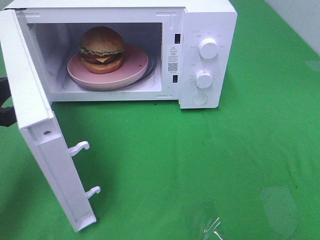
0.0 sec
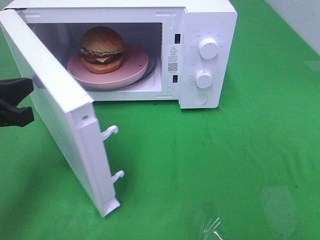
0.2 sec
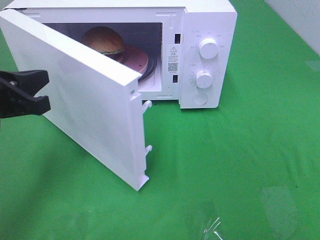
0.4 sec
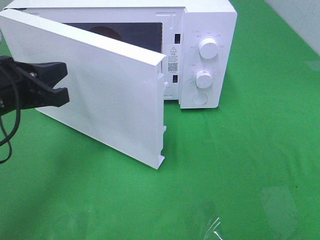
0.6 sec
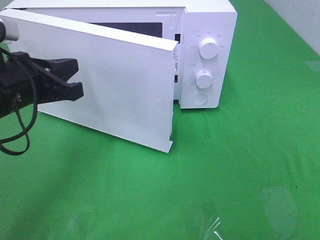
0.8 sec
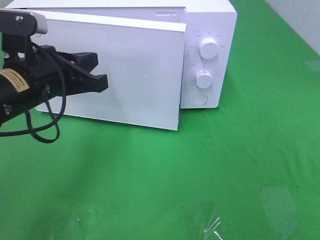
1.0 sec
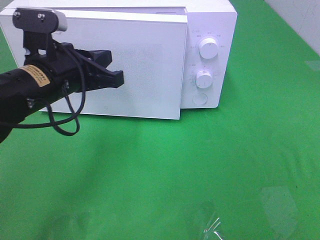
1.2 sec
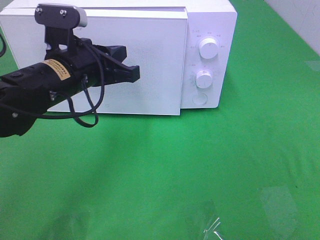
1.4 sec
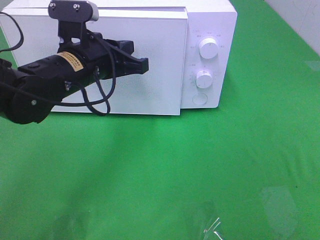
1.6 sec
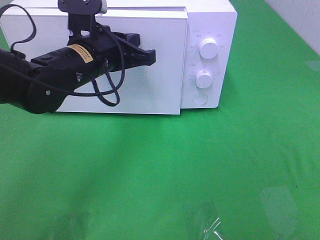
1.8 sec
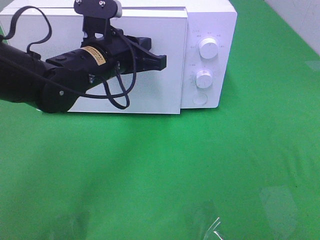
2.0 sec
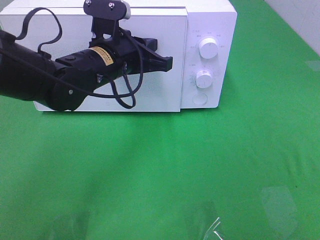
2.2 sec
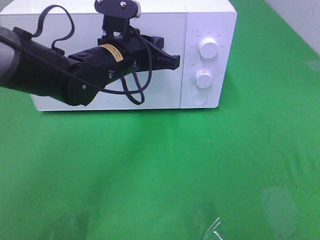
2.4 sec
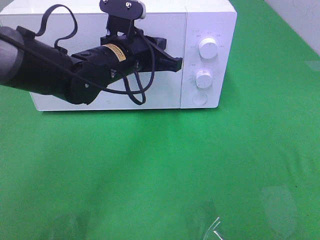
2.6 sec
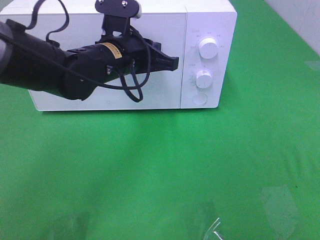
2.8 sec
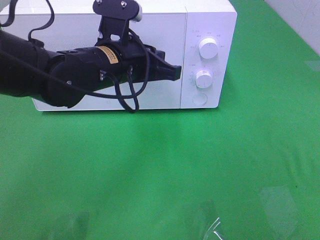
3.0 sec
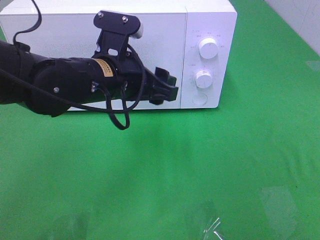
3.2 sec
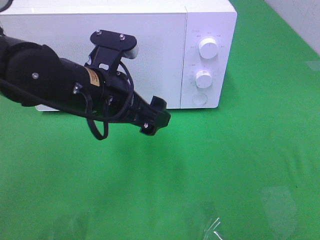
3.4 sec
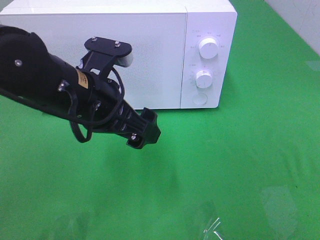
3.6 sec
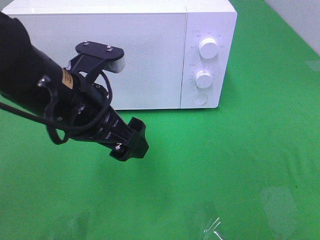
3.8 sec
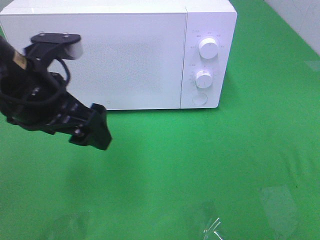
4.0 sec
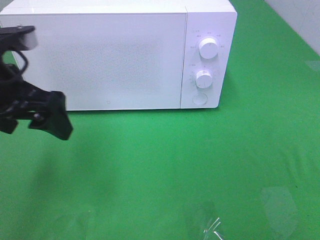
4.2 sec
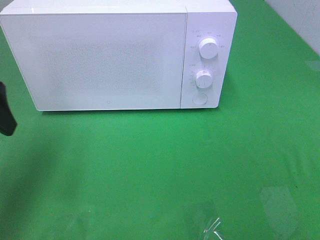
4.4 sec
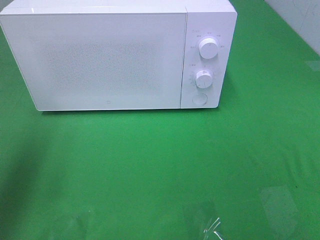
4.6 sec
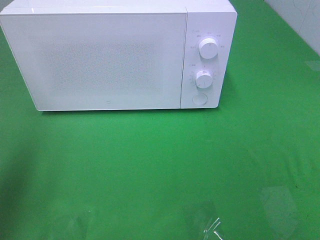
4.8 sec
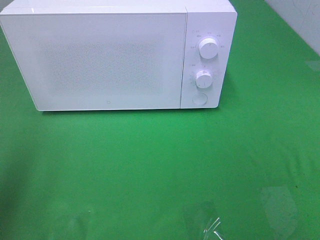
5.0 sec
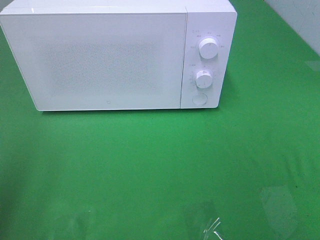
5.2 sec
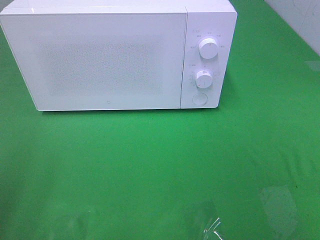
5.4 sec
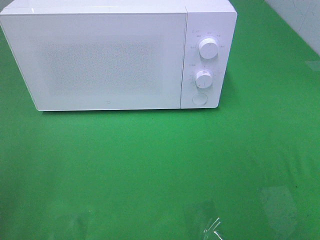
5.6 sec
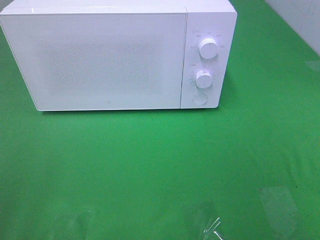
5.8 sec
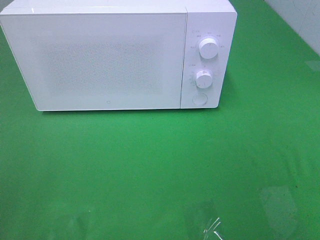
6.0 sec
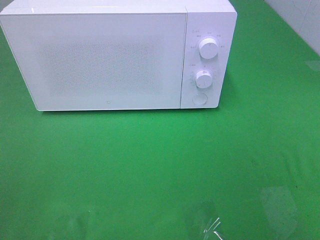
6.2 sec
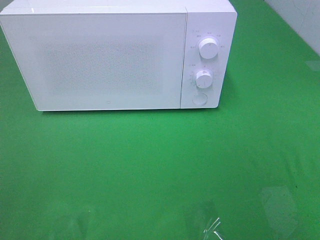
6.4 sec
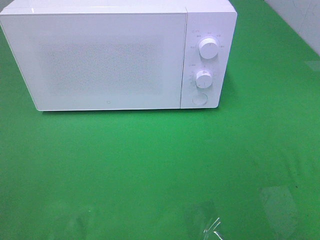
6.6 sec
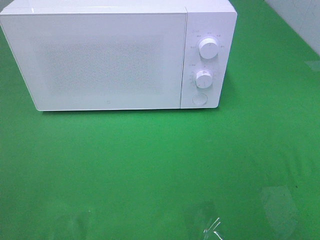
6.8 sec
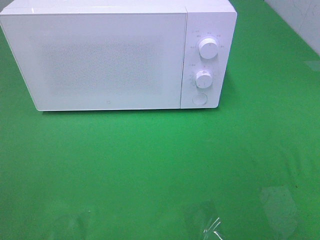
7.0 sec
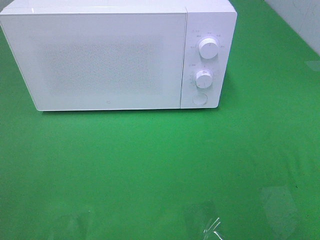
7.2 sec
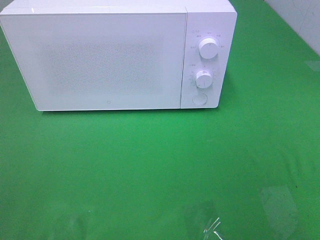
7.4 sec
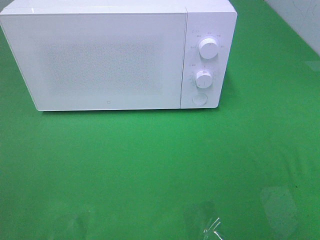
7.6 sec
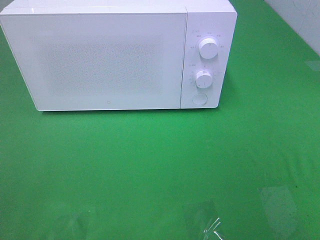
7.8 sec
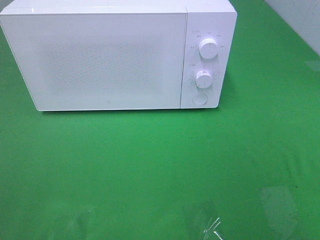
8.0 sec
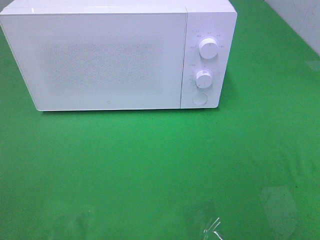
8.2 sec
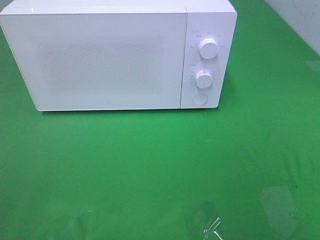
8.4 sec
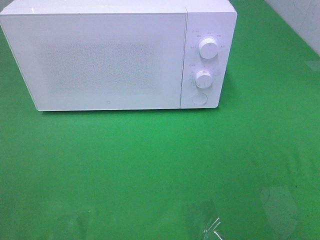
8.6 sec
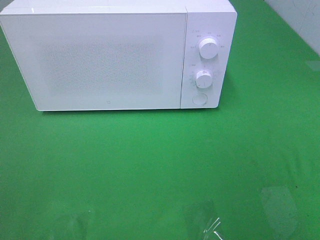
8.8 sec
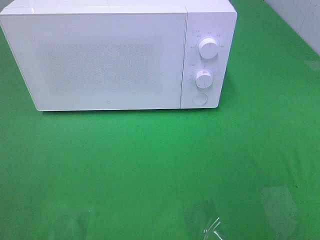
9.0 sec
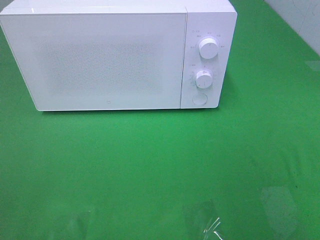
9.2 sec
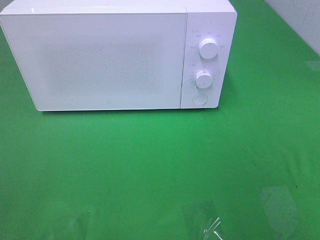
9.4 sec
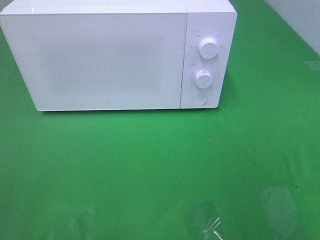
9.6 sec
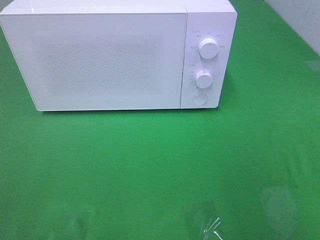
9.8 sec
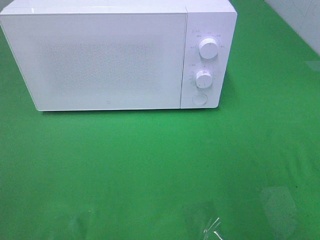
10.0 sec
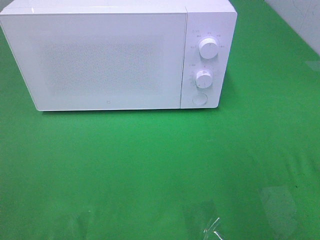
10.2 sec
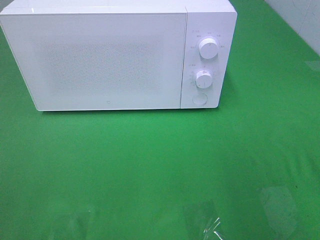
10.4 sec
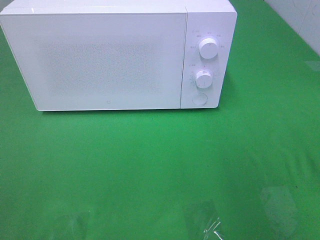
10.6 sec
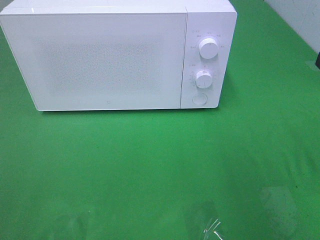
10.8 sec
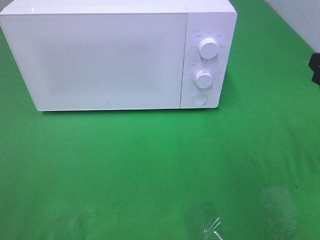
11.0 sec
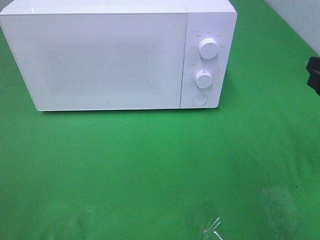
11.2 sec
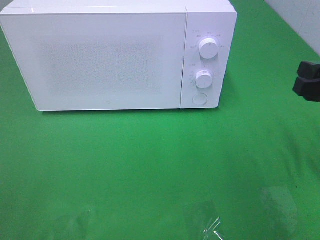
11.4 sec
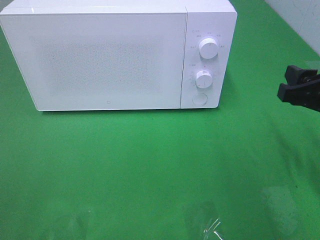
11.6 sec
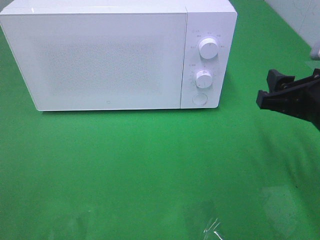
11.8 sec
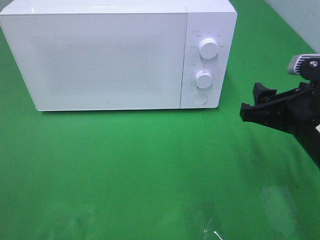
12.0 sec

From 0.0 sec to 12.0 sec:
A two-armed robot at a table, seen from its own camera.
Task of the whole recording: Heat the burger.
Step, from 0.0 sec to 3.4 sec: Left hand: close the microwave door.
From 0.0 sec to 1.6 sec: The left gripper travels to the right and forward by approximately 20 cm.
From 3.0 sec to 4.4 sec: The left gripper heads to the left, covering approximately 20 cm, and opens its fingers.
From 4.4 sec to 6.0 sec: The left gripper shifts some 20 cm backward.
From 10.4 sec to 12.0 sec: The right gripper shifts some 10 cm downward and to the left.

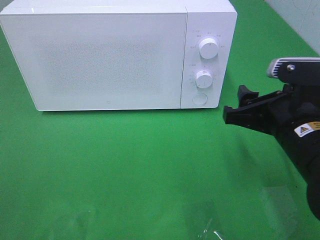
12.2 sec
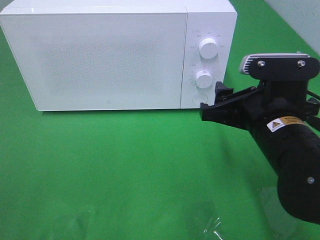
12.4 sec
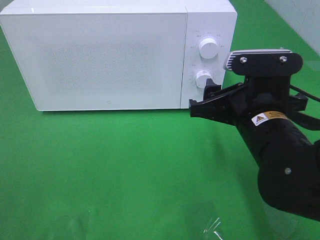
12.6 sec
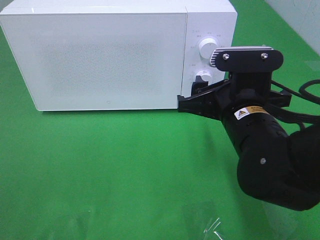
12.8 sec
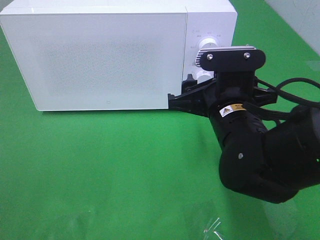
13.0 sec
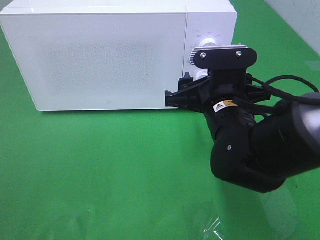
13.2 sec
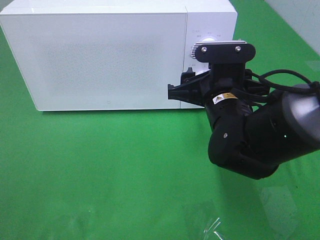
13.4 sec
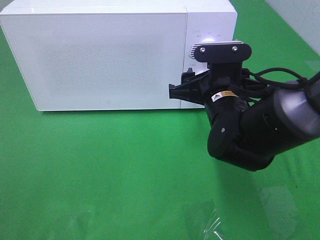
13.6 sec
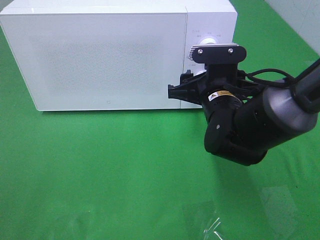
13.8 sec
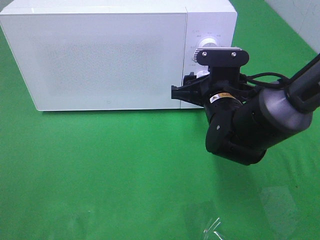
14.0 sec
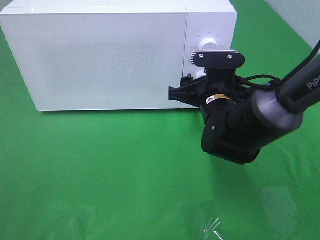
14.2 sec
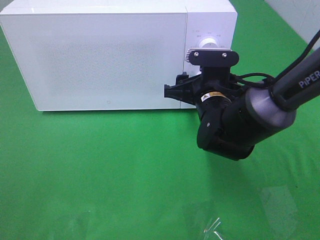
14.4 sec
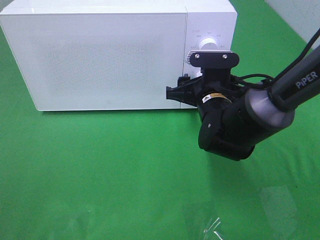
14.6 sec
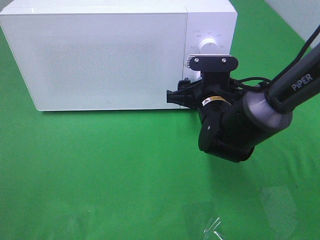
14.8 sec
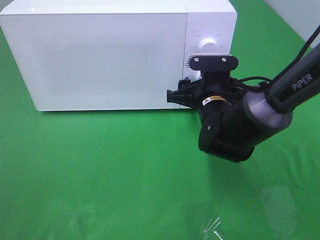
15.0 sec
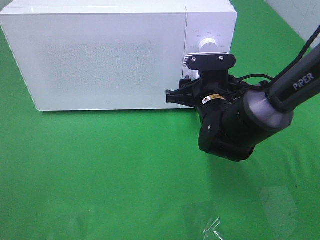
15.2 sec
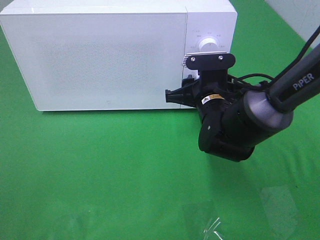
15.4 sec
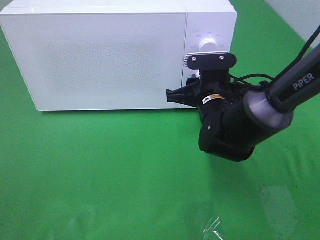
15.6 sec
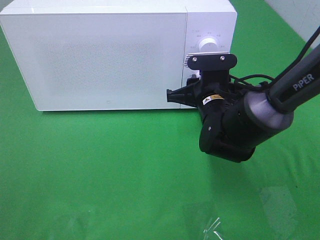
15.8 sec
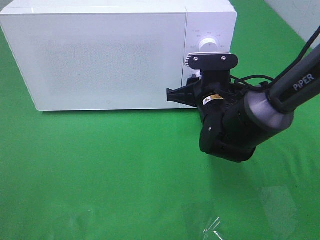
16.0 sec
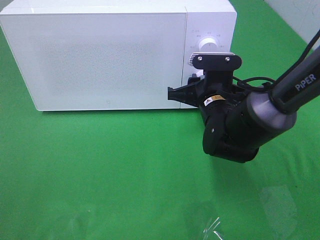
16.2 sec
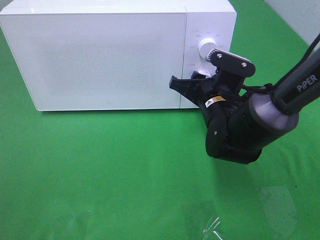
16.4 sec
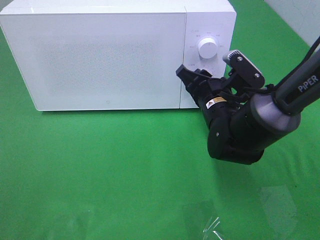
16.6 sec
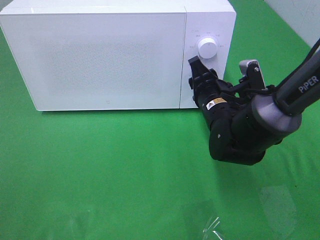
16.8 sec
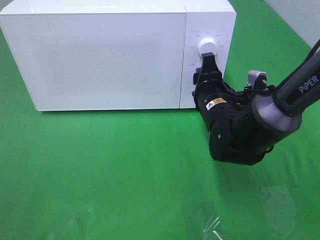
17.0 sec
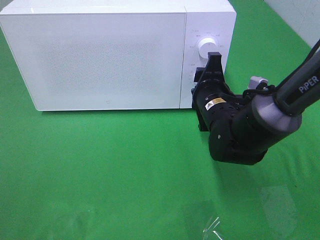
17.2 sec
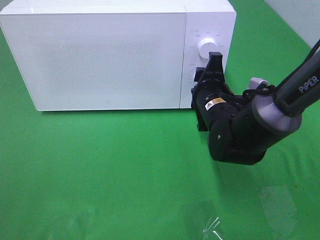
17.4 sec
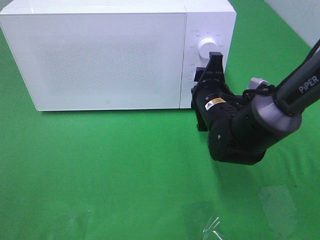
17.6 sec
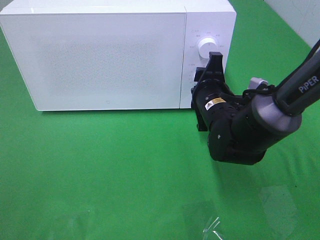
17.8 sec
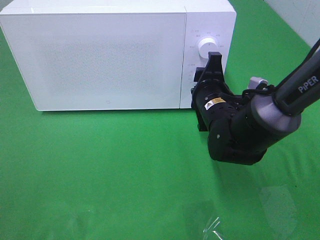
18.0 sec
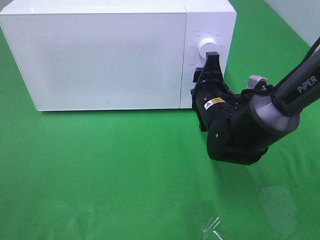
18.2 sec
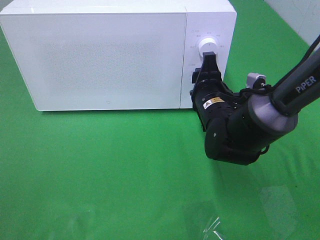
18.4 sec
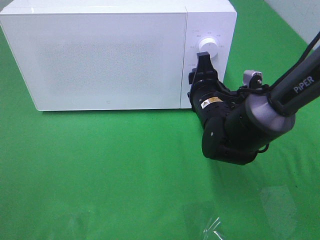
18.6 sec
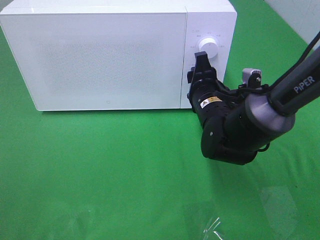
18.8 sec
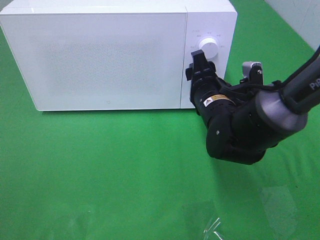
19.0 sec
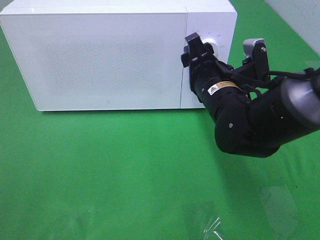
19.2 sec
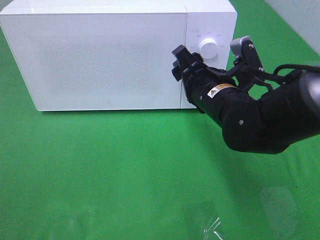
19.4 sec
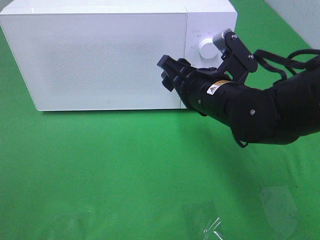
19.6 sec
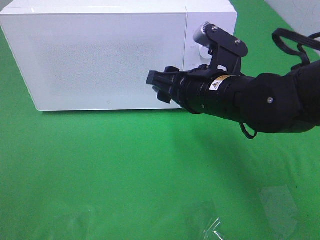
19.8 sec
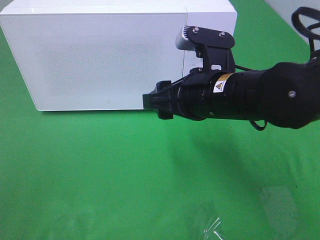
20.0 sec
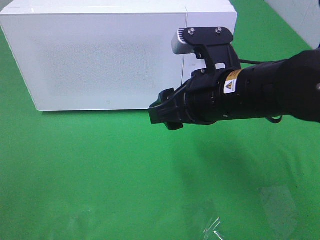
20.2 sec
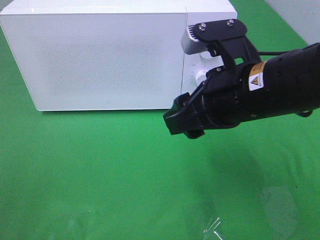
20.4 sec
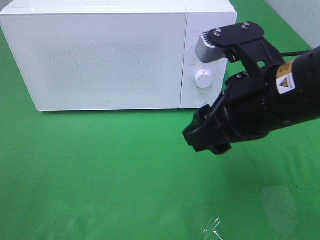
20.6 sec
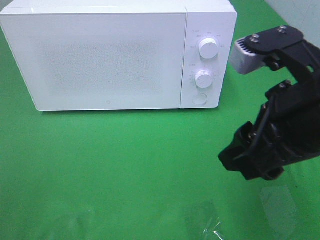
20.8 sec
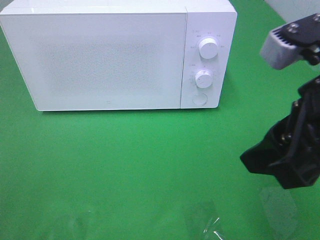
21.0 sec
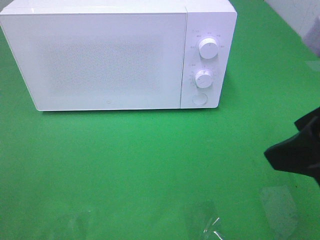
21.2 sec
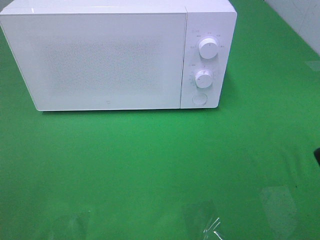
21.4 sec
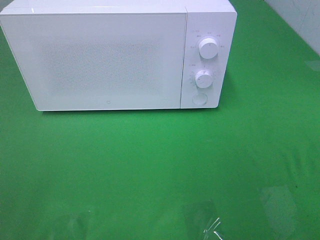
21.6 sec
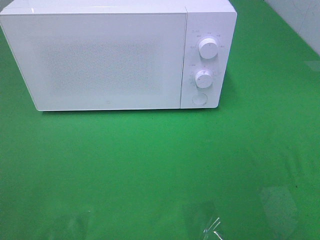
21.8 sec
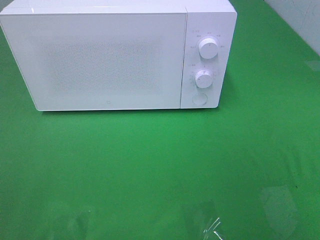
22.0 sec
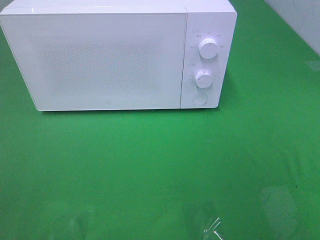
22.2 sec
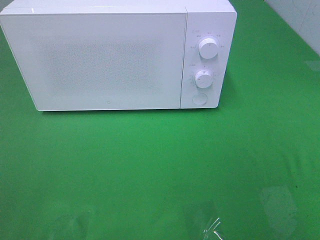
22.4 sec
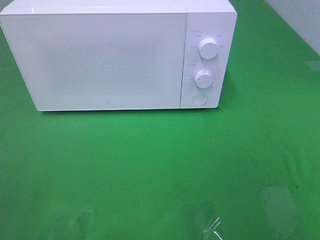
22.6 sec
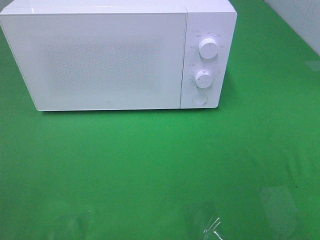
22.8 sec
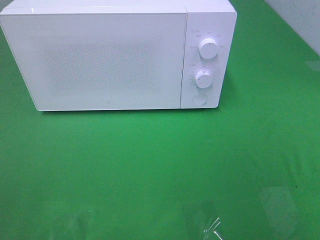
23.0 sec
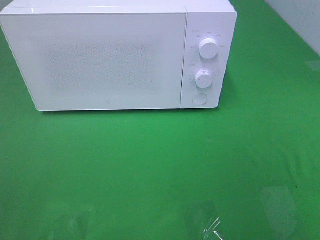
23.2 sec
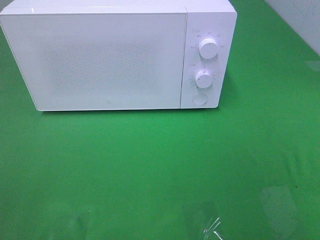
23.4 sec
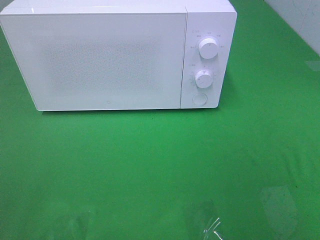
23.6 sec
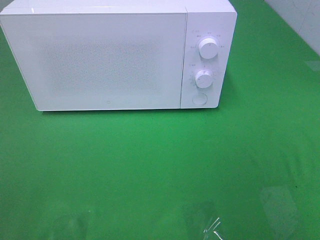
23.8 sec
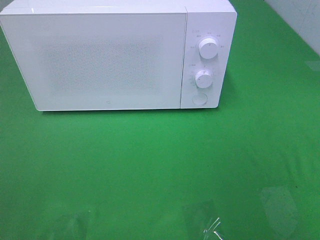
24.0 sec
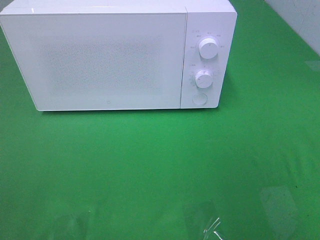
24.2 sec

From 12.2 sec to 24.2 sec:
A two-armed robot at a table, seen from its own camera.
Task of the whole recording: Heat the burger.
Step, from 12.2 sec to 19.0 sec: Right hand: twist timer button.
From 12.2 sec to 13.8 sec: The right gripper is displaced forward and to the left by approximately 10 cm.
From 13.8 sec to 15.2 sec: The grippers move only a little.
From 18.2 sec to 19.8 sec: The right gripper heads upward and backward, covering approximately 10 cm.
From 19.8 sec to 21.2 sec: The right gripper shifts approximately 20 cm backward, upward and to the right.
From 21.2 sec to 22.6 sec: The right gripper moves backward and to the right, about 15 cm.
